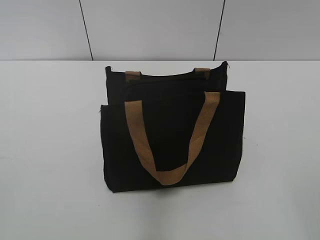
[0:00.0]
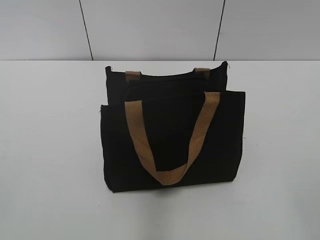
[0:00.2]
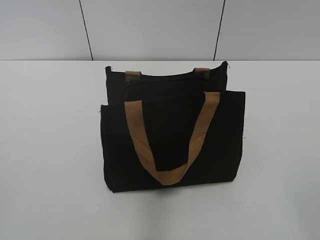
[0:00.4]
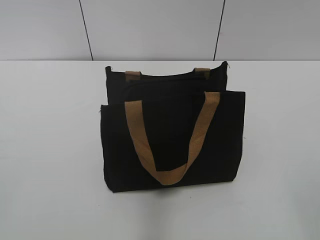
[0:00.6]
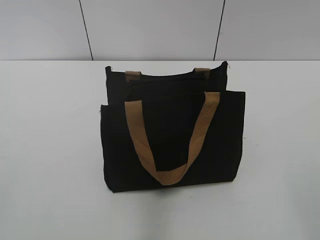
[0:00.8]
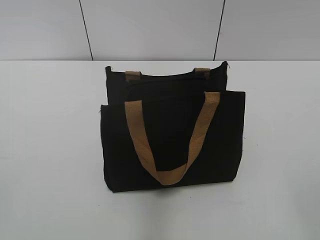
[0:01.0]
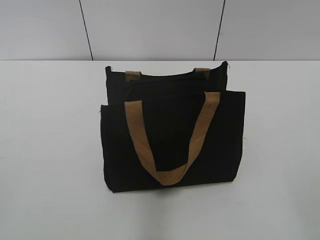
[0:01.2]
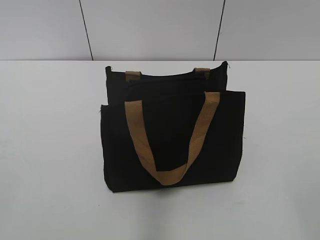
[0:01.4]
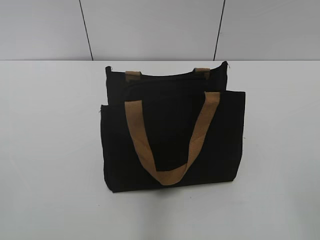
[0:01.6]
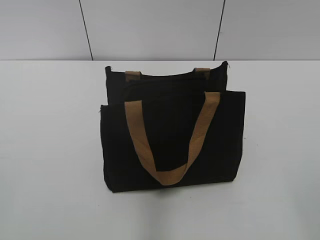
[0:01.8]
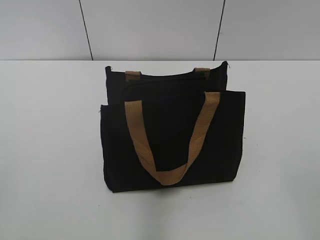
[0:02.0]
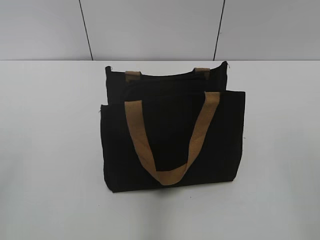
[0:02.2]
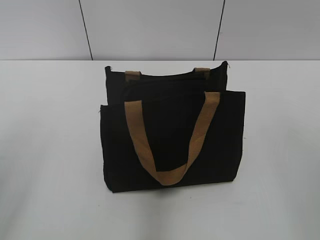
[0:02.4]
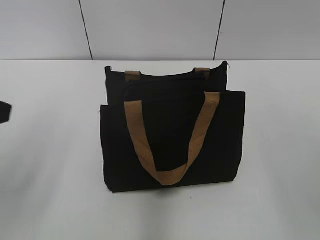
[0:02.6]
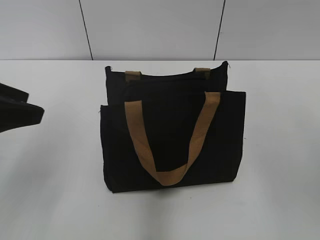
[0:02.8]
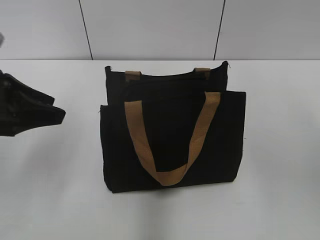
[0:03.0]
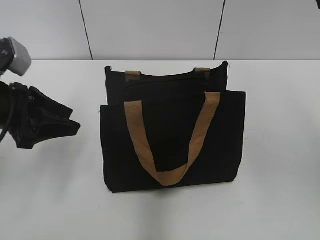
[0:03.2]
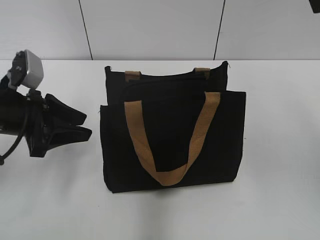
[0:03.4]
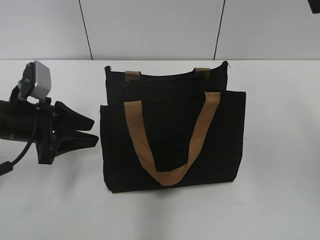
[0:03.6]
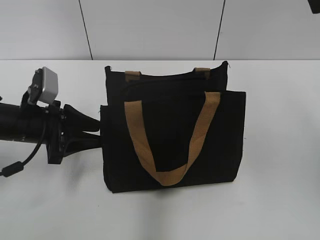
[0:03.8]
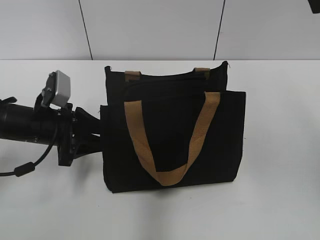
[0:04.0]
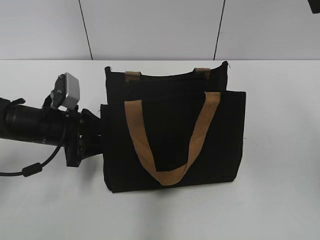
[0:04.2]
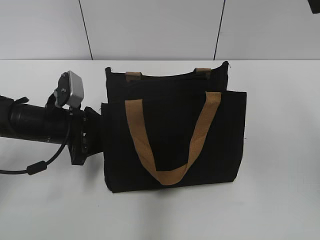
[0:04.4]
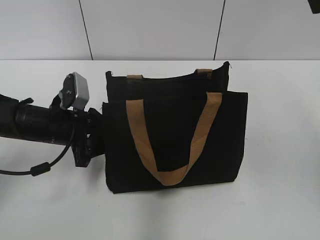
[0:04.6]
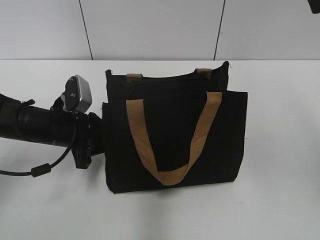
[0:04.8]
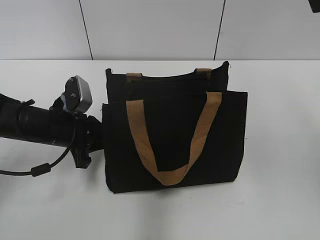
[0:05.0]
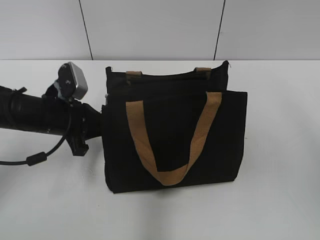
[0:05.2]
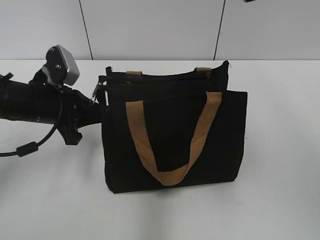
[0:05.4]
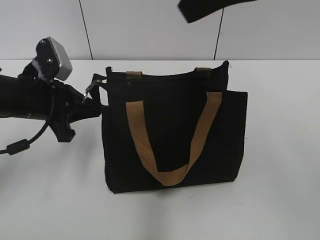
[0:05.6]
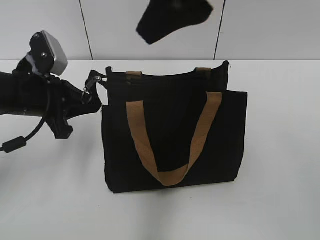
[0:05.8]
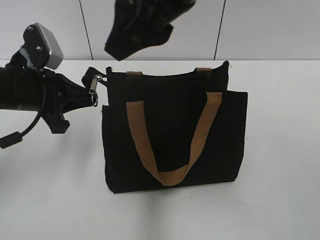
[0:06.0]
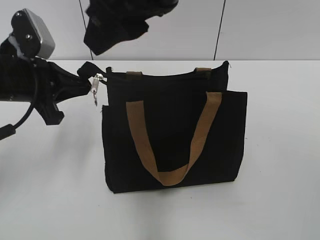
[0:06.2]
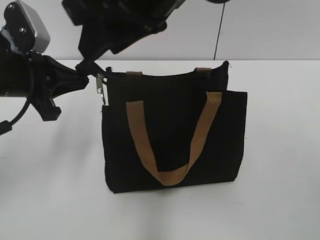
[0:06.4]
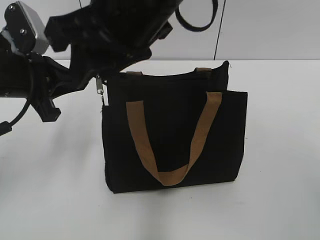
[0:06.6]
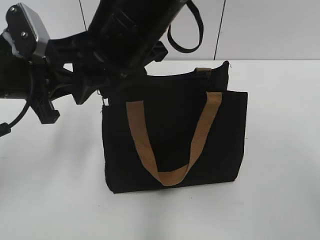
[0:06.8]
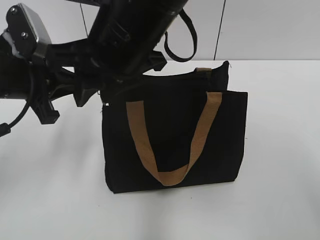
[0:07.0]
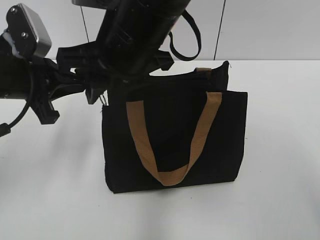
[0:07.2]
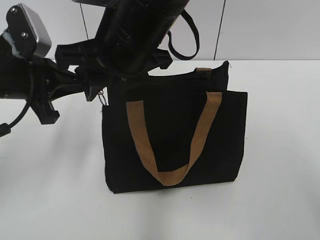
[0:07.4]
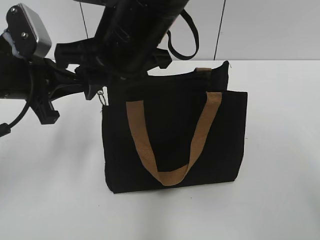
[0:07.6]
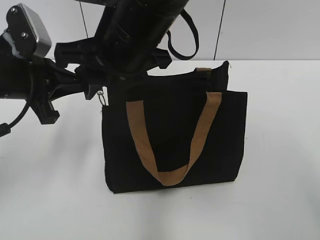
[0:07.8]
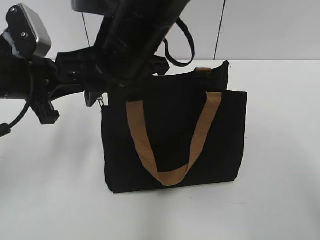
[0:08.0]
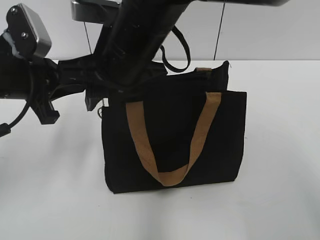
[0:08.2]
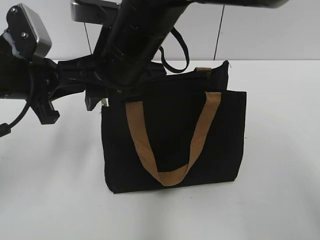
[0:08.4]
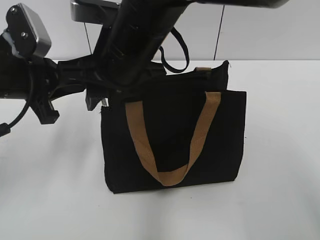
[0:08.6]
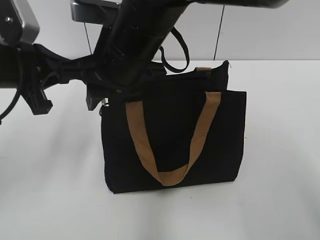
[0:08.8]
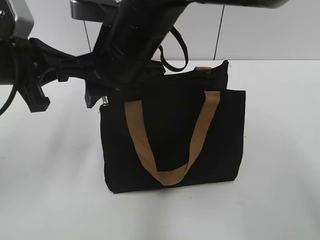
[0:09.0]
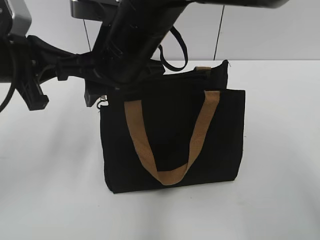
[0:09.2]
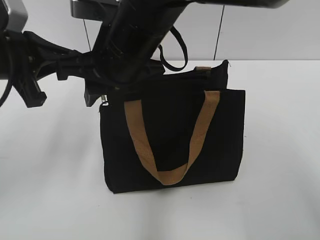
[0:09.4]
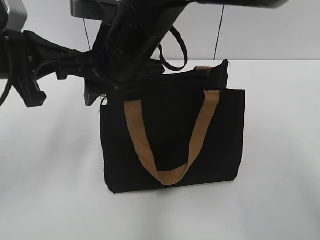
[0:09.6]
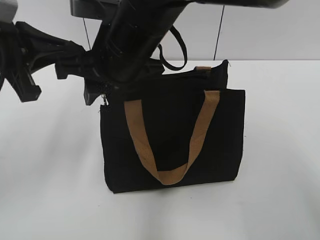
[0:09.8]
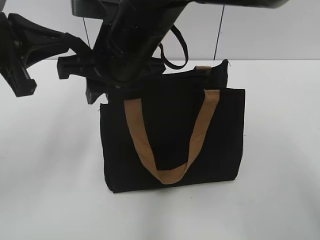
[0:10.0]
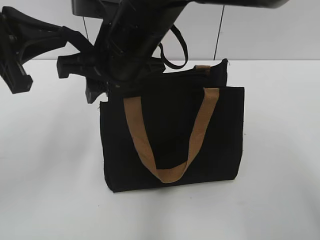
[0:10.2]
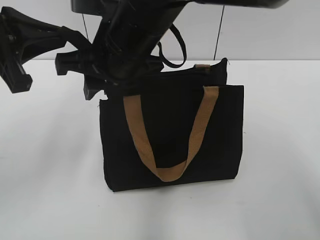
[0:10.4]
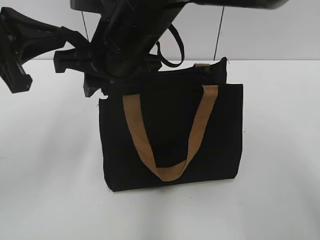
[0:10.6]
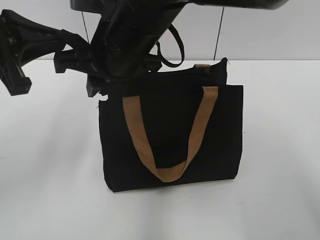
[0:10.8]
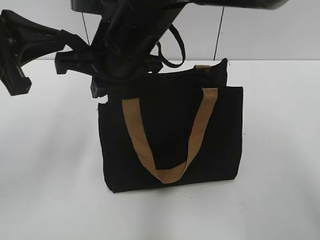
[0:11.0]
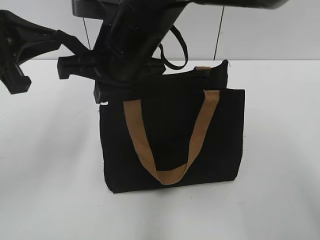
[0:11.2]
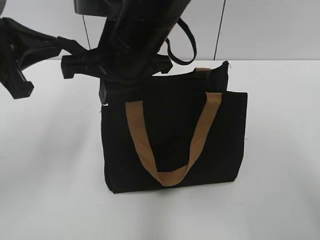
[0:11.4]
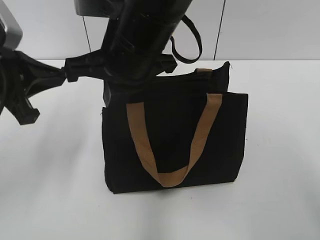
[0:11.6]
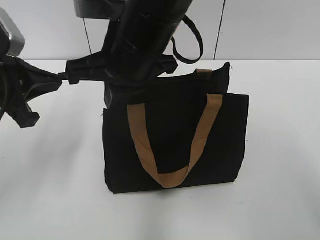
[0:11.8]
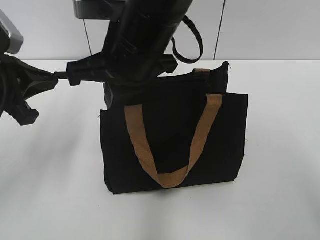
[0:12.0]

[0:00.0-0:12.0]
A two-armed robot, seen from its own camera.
0:01.6 to 0:03.0: The left gripper is displaced forward by about 25 cm.
0:03.0 to 0:04.4: The left gripper moves downward, forward and to the right, some 15 cm.
0:04.4 to 0:06.0: The left gripper travels upward by roughly 10 cm, and closes its fingers. The right gripper heads to the left, covering some 20 cm.
0:06.0 to 0:07.6: The right gripper moves downward and to the left, approximately 10 cm.
0:07.6 to 0:09.0: There are only small adjustments of the grippers.
0:09.0 to 0:10.4: The grippers move only a little.
0:10.4 to 0:12.0: The right gripper closes up, while the left gripper is displaced downward by some 5 cm.

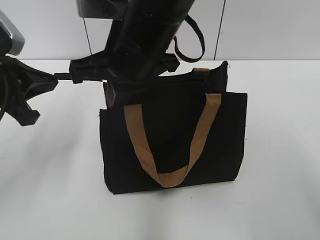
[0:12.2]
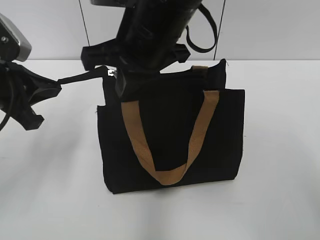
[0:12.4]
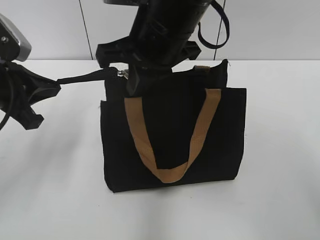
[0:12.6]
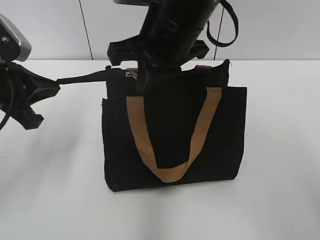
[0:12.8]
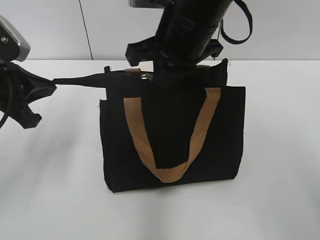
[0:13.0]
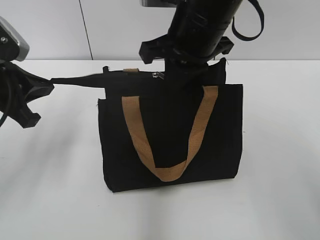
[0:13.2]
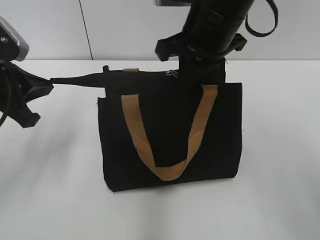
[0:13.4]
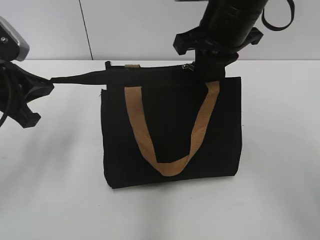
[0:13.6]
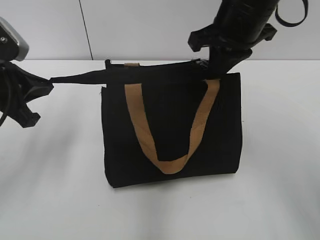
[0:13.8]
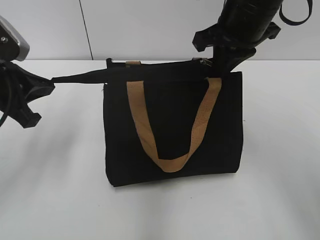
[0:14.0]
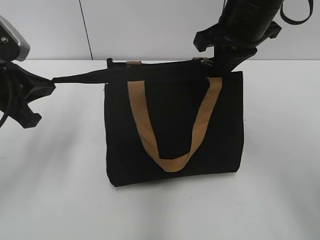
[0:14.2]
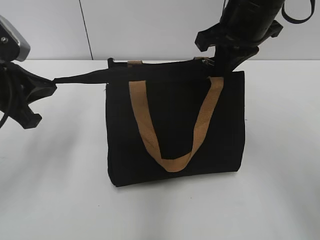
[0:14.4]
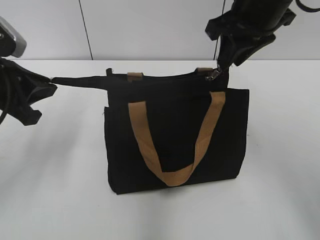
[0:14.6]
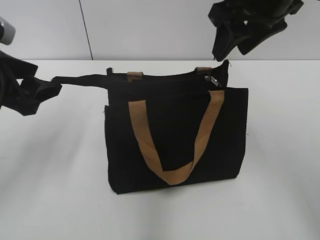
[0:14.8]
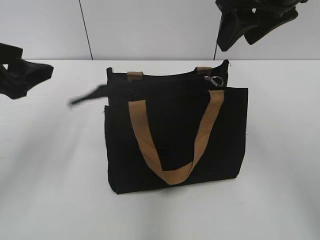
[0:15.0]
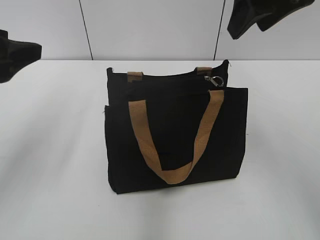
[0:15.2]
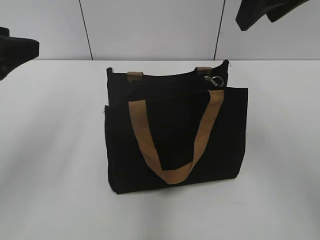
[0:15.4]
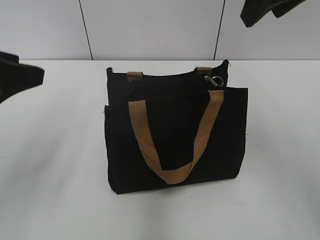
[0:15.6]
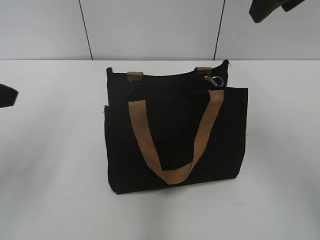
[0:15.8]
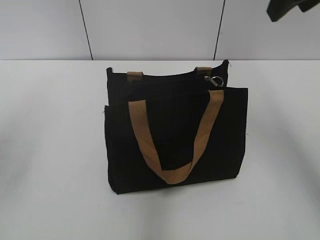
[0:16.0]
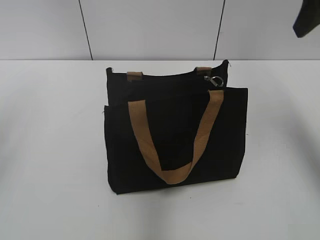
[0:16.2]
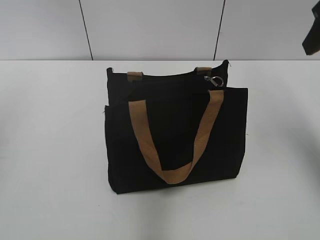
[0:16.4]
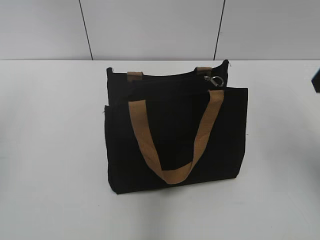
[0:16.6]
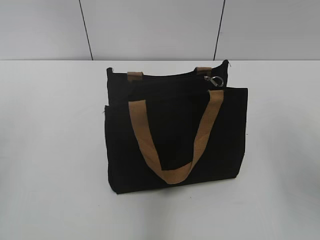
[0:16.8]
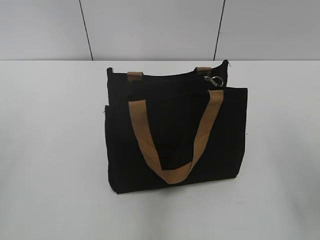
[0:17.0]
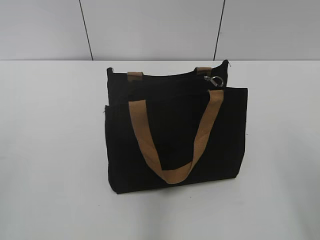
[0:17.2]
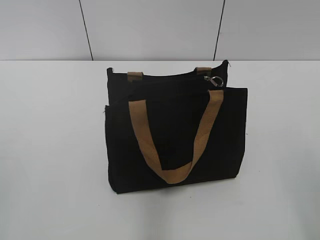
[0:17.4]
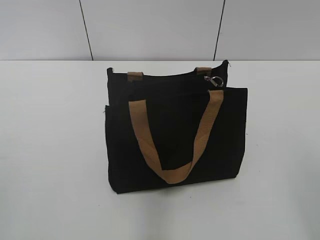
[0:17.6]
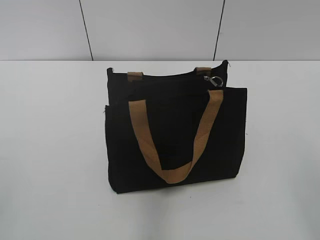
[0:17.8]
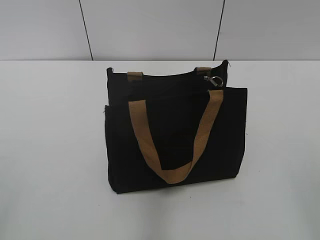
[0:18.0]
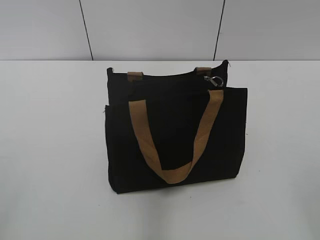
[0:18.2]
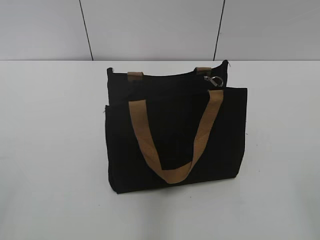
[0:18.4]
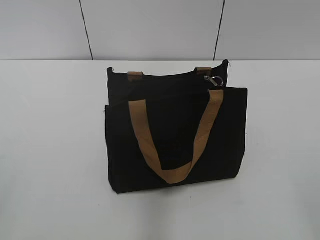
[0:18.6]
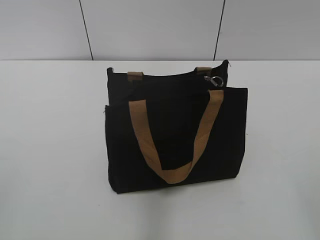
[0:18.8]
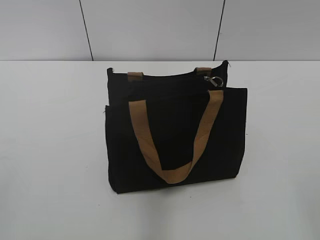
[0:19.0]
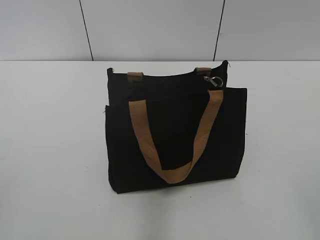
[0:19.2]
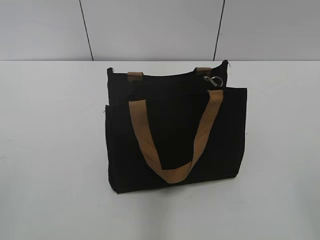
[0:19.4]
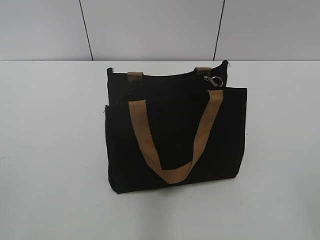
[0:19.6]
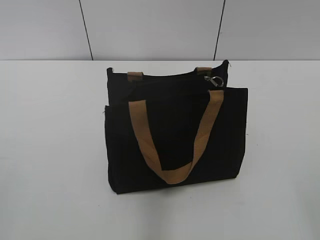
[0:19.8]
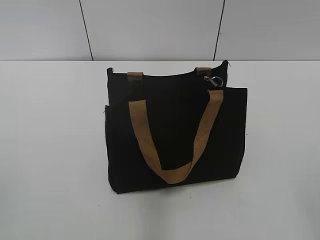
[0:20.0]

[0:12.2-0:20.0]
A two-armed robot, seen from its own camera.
Step, 0:12.2 to 0:14.6: Zip up the bag with your right hand.
Step, 0:14.8 to 0:15.0: Grab the zipper with your left hand.
0:12.2 to 0:13.8: The right gripper moves to the right and forward, about 15 cm.
0:13.8 to 0:15.4: The grippers both shift upward by approximately 10 cm. The left gripper opens, while the right gripper opens up.
0:15.4 to 0:16.8: The right gripper moves backward, to the right and downward, about 15 cm. Meanwhile the left gripper shifts some 10 cm to the left and backward.

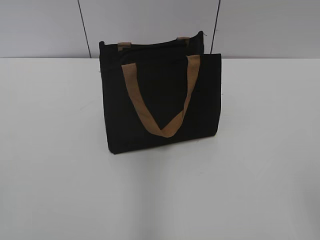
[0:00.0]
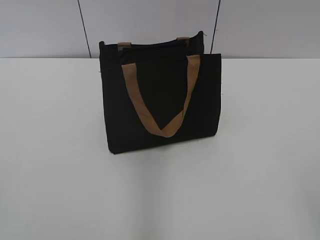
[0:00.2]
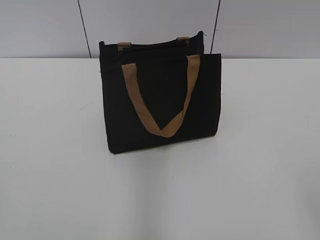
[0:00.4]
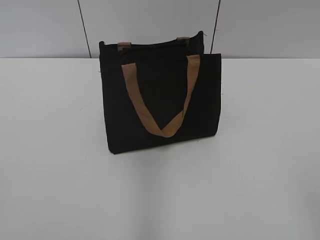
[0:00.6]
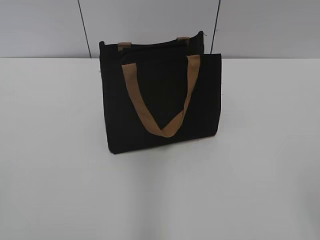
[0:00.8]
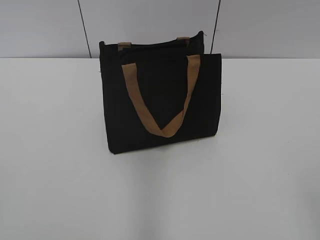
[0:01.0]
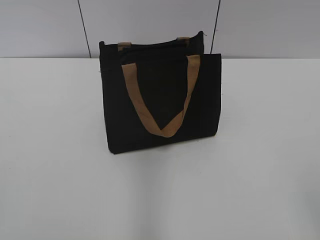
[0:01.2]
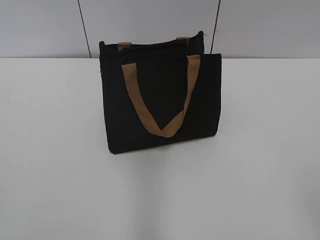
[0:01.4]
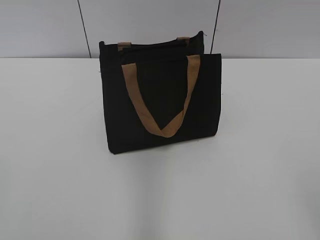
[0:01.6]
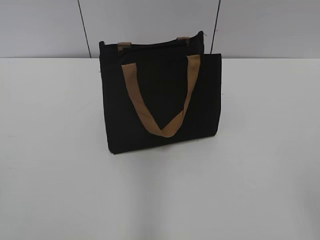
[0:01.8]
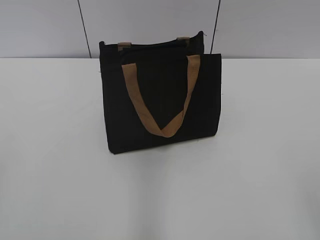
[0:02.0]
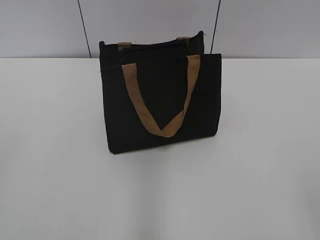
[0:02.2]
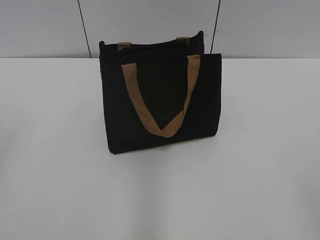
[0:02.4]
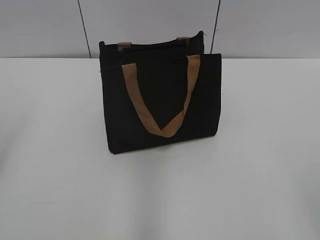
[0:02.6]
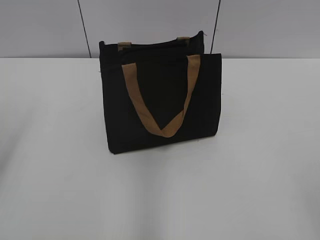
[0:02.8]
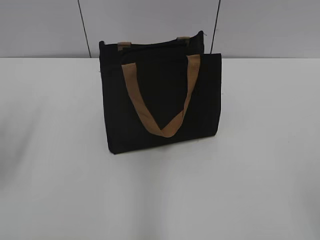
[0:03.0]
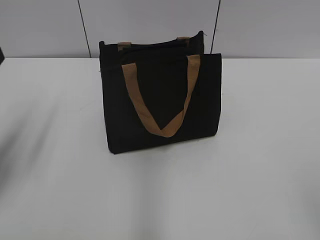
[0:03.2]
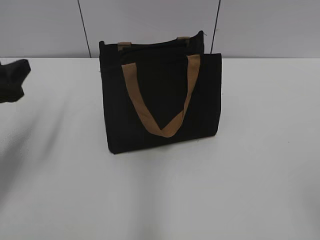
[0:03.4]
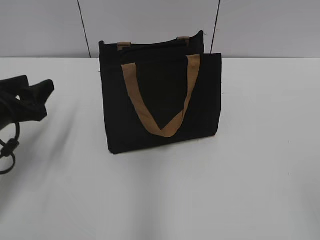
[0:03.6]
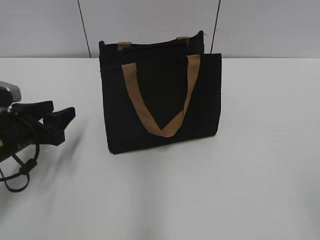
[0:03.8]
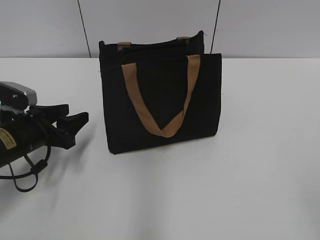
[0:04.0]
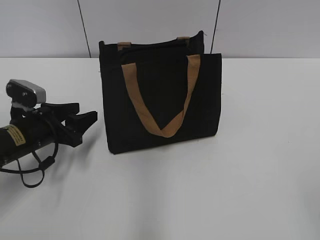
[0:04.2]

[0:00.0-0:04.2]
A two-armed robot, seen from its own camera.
0:01.4 to 0:02.8: The left gripper shifts roughly 15 cm forward, and opens its fingers.
0:02.8 to 0:04.2: The left gripper travels downward, forward and to the right by some 25 cm.
